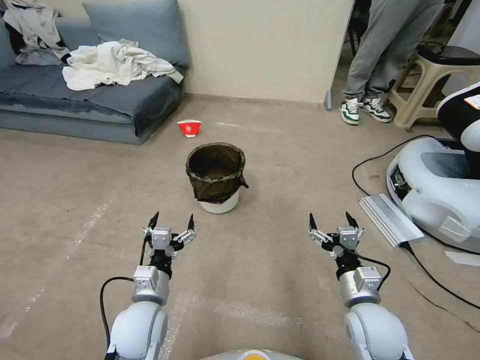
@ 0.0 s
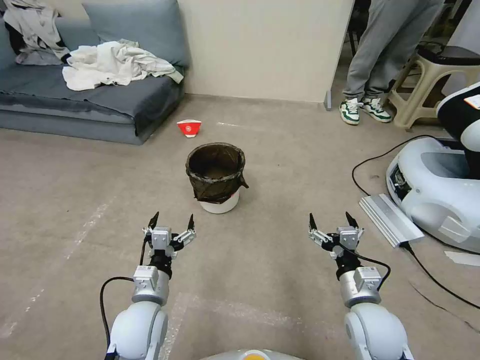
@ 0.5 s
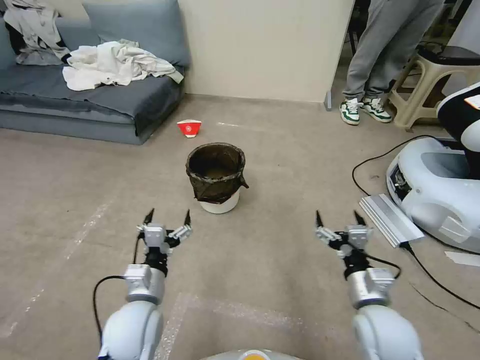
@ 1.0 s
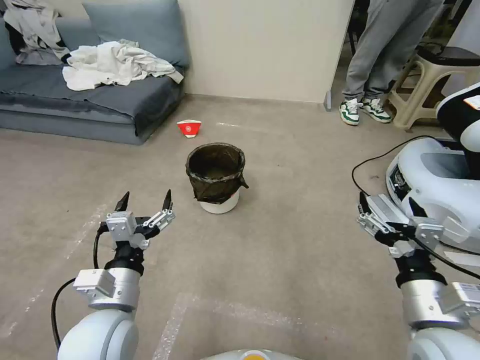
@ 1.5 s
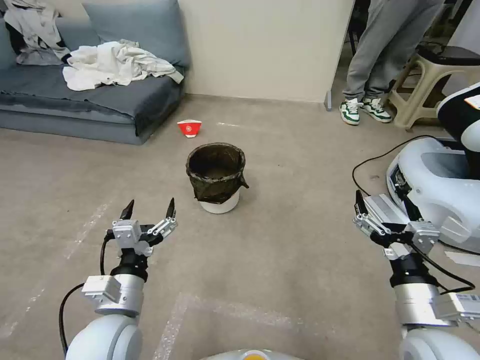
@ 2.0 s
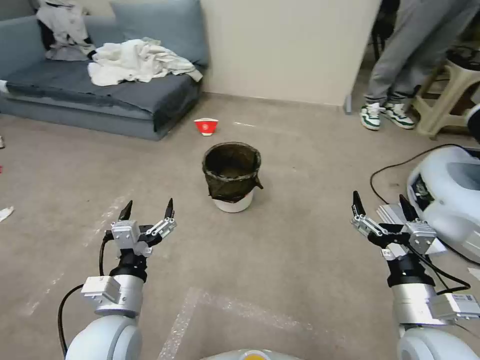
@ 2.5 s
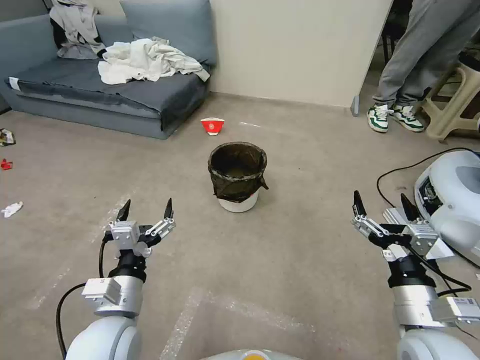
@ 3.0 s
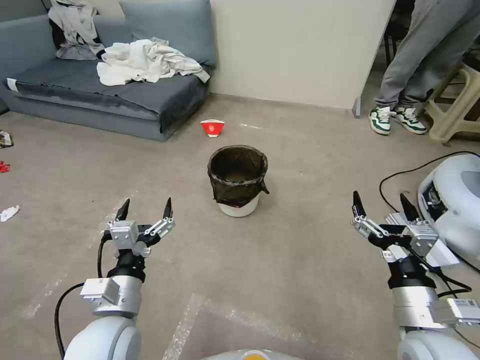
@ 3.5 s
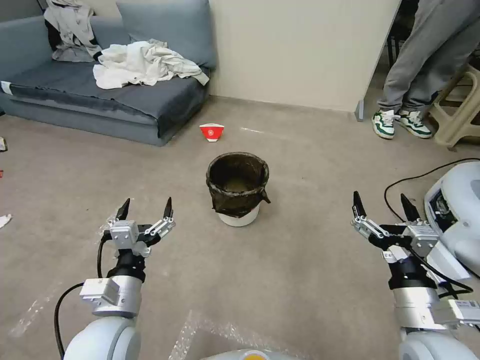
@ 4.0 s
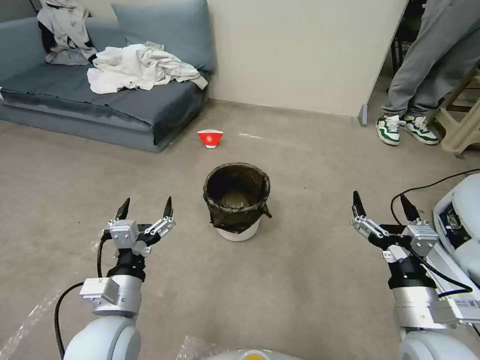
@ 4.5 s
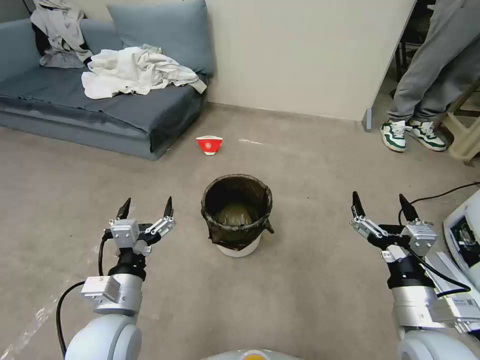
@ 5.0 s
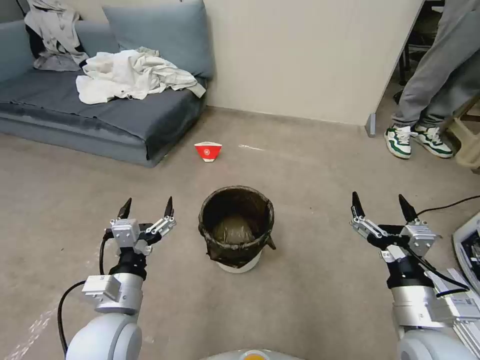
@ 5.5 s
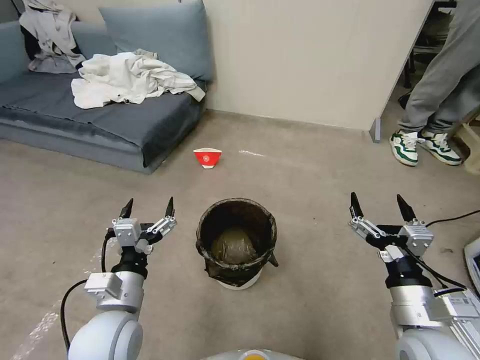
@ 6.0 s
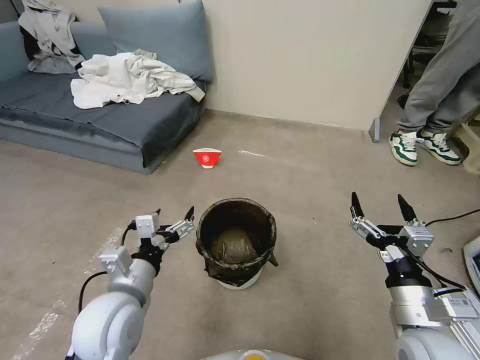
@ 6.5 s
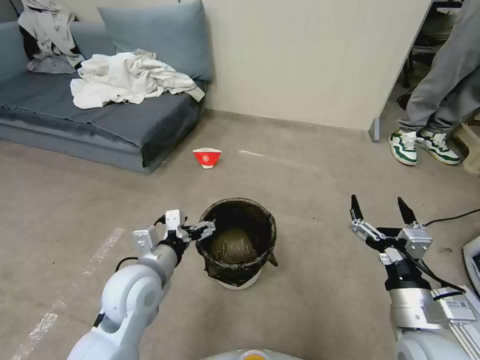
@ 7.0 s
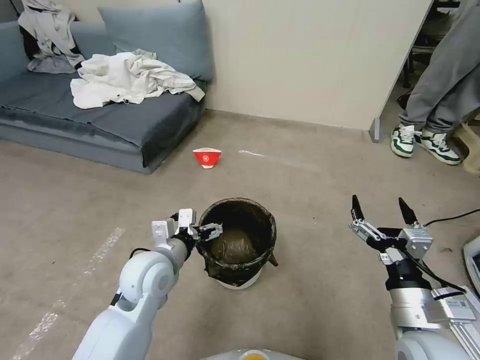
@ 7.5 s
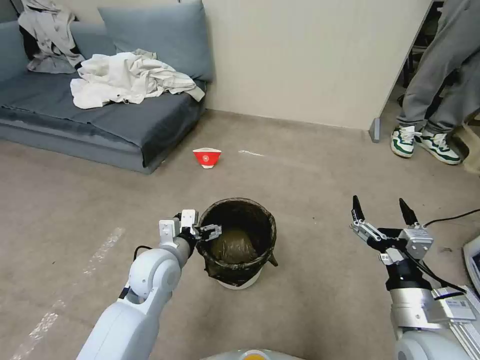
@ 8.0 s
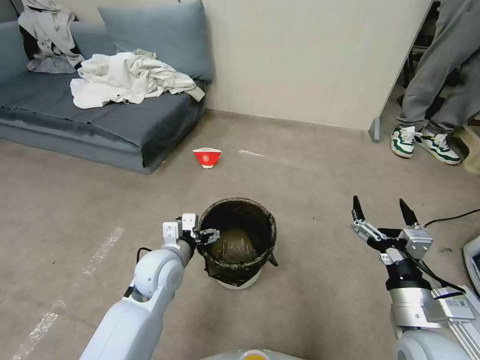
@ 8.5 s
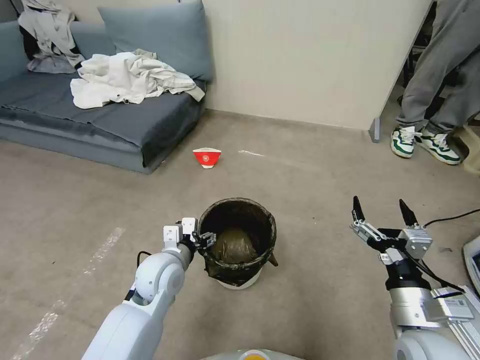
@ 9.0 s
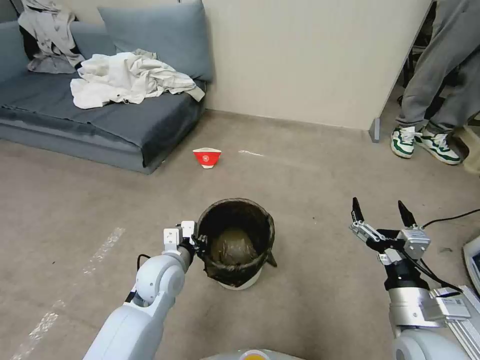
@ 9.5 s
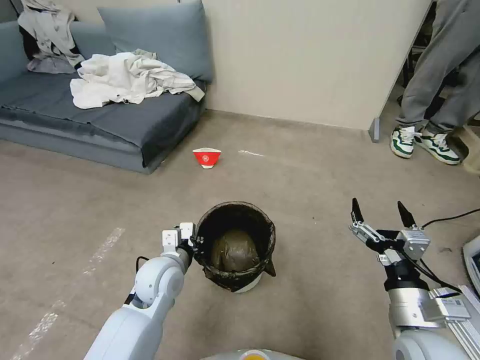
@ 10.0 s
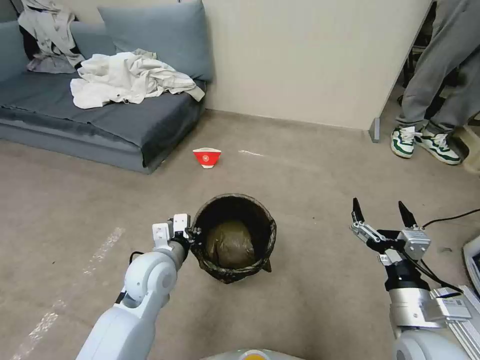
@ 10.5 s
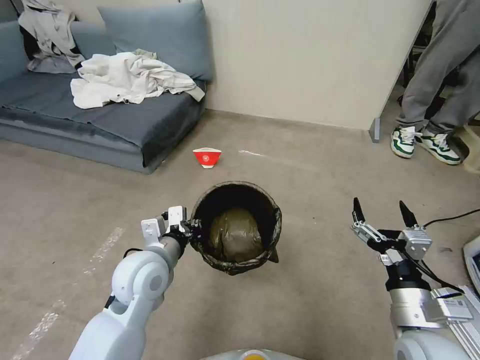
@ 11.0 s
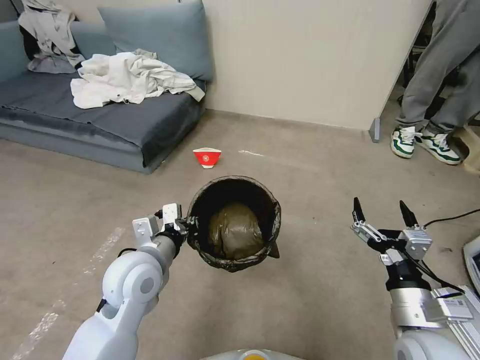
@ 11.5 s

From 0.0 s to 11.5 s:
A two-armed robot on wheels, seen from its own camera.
Task of the whole recording: Pick up the trash can from the floor.
From 6.0 s to 7.5 s: The left gripper is displaced forward by approximately 10 cm.
From 7.5 s to 9.5 s: The left gripper is displaced downward by approximately 5 cm, and closes up.
From 9.5 s to 11.5 s: The left gripper travels upward by approximately 10 cm.
